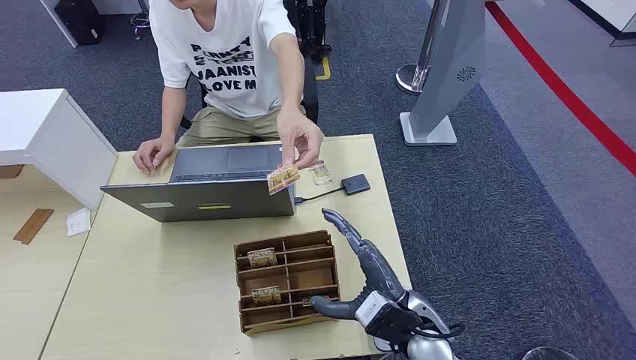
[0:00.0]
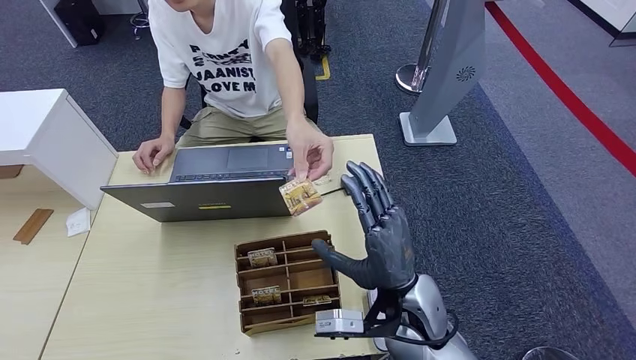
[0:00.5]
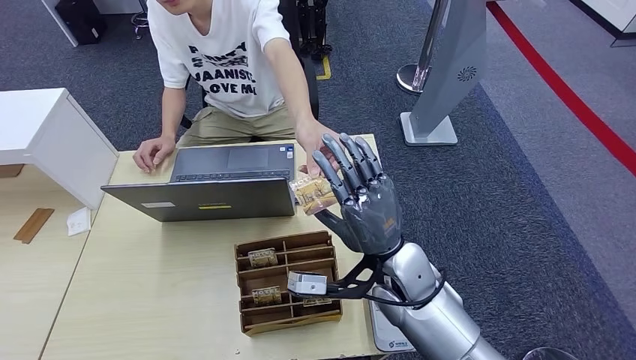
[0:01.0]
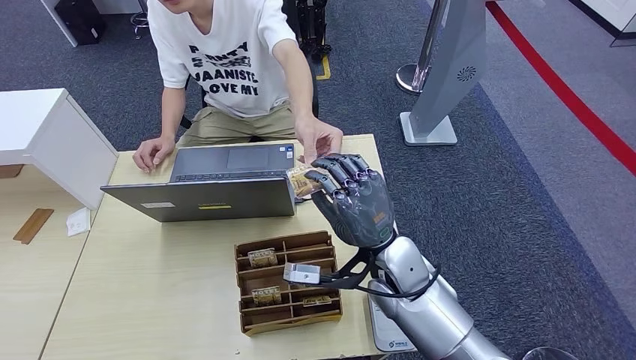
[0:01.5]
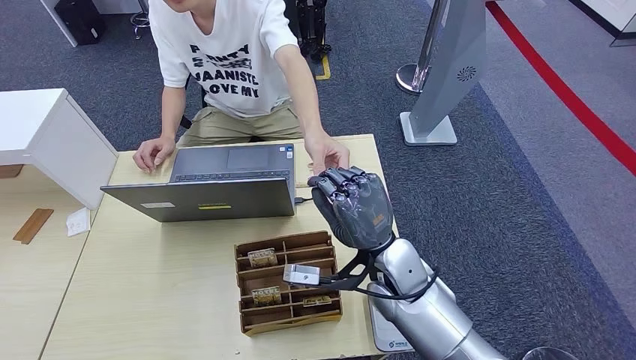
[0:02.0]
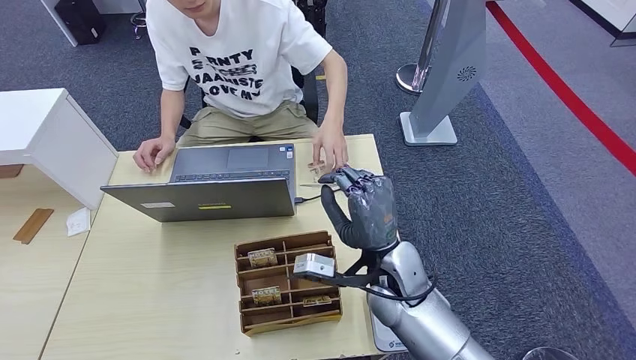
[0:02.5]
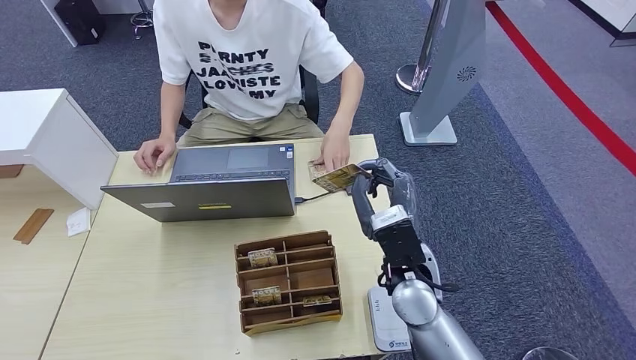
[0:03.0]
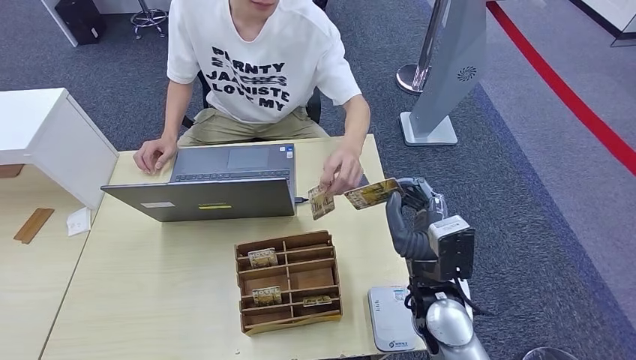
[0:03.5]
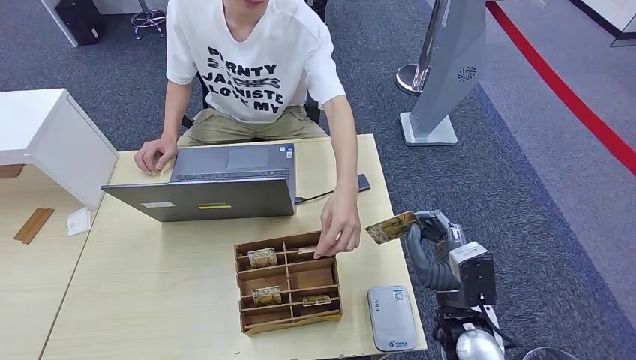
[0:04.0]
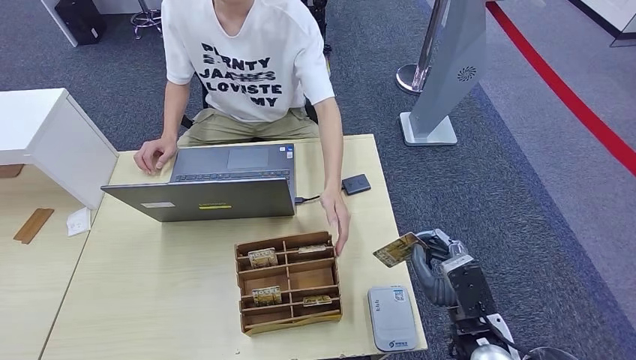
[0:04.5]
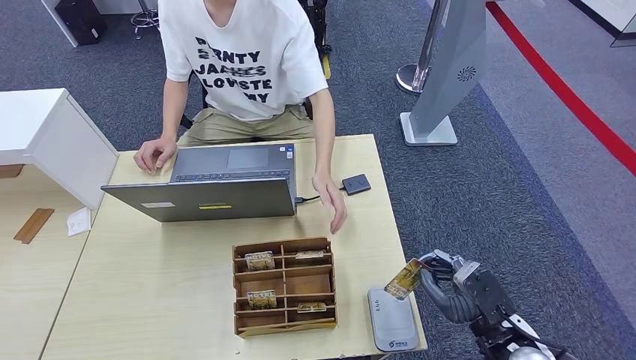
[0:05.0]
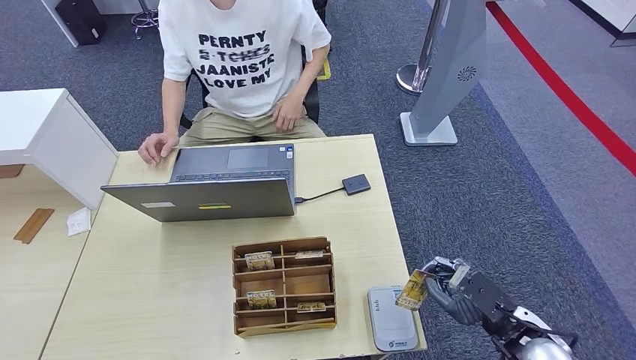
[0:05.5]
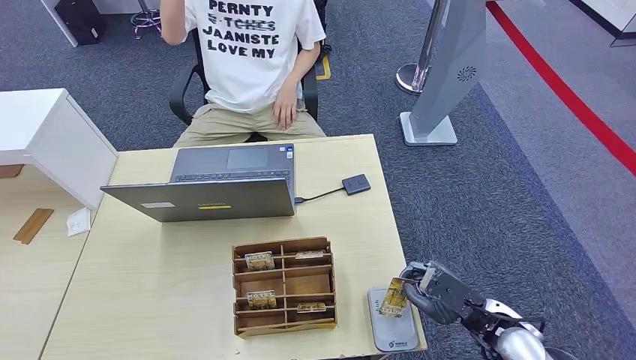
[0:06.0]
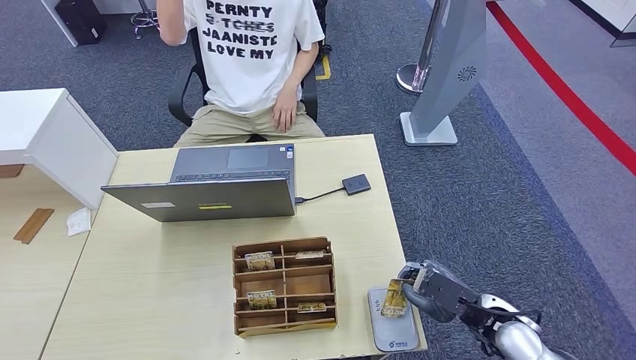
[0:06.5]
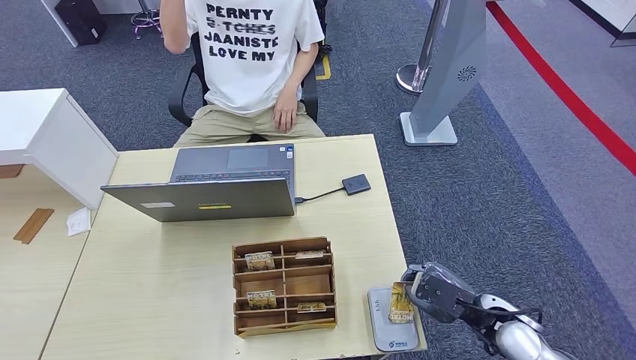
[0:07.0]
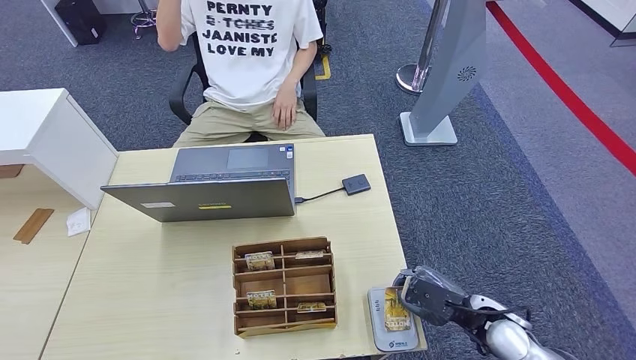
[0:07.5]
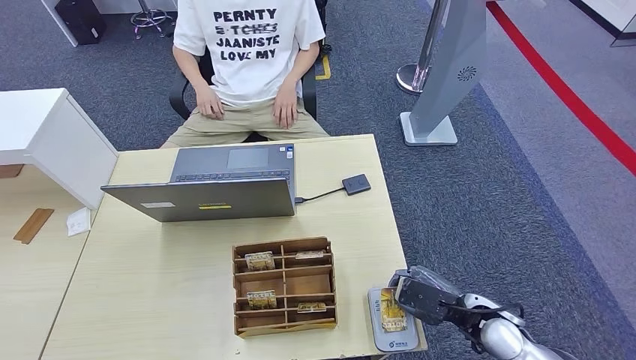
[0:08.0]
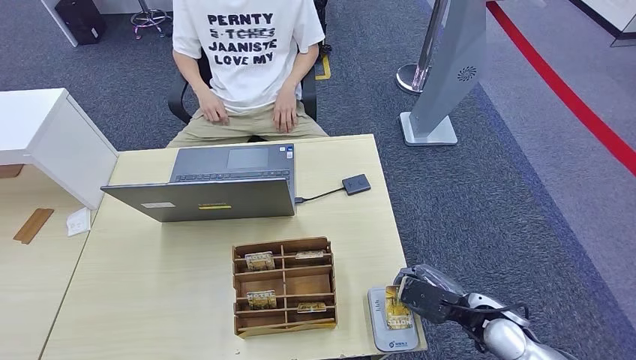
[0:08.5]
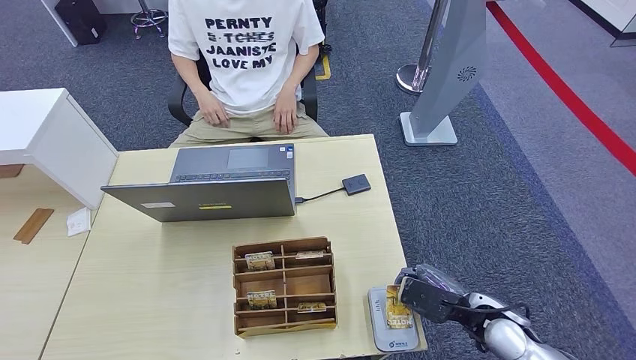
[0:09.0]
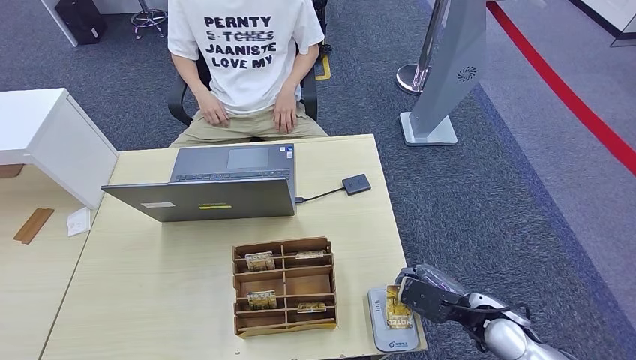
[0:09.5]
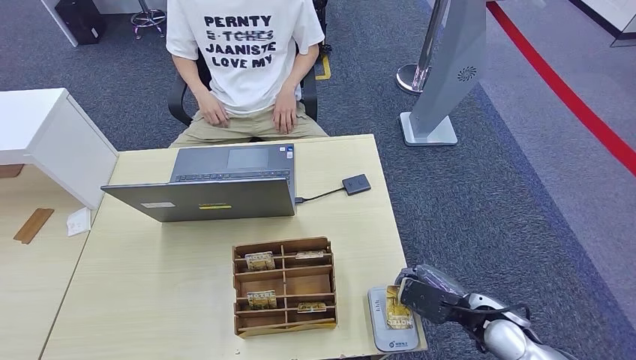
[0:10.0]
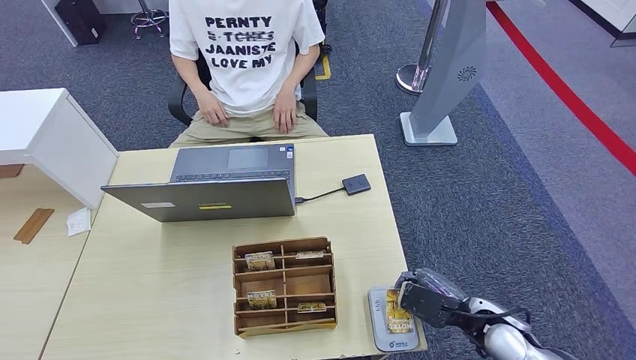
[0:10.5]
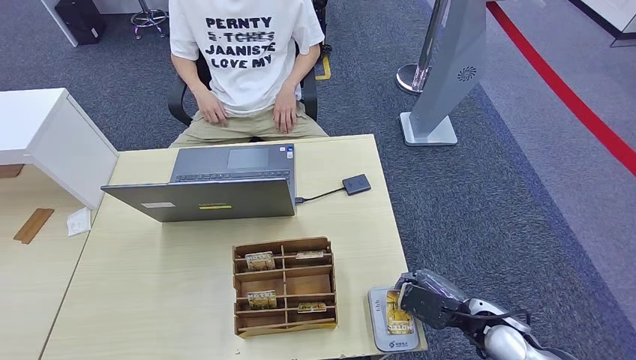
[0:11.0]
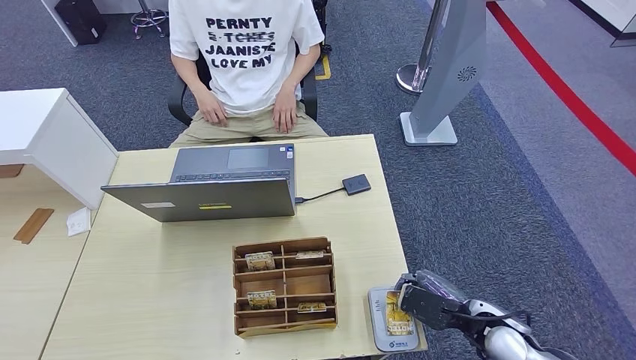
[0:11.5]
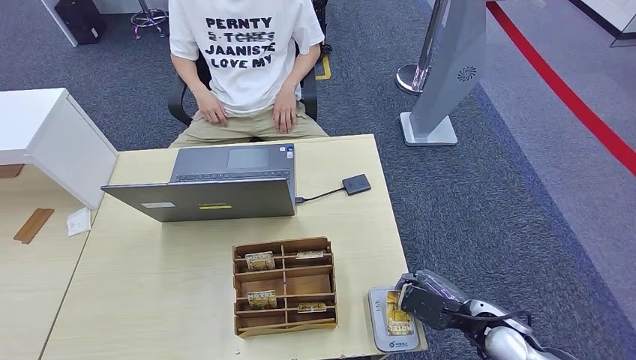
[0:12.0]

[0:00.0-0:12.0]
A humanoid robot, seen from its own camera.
Step, 0:00.0 to 0:01.5: Take the ID card from the person's hand.
Step, 0:02.5 to 0:06.5: Place the ID card on the card reader.
0:02.0 to 0:04.0: The right hand moves to the right and backward, some 15 cm.
0:06.0 to 0:10.0: The hands make only small movements.
0:10.0 to 0:12.0: Both hands stay about where they are.

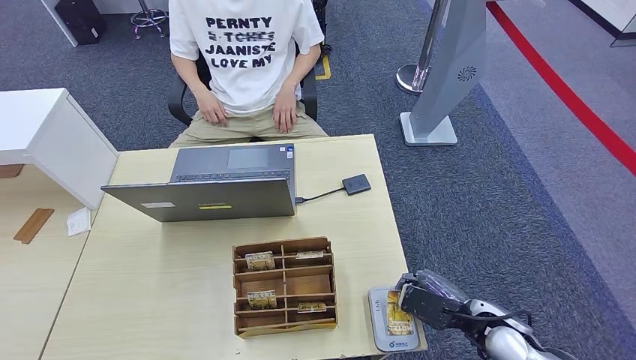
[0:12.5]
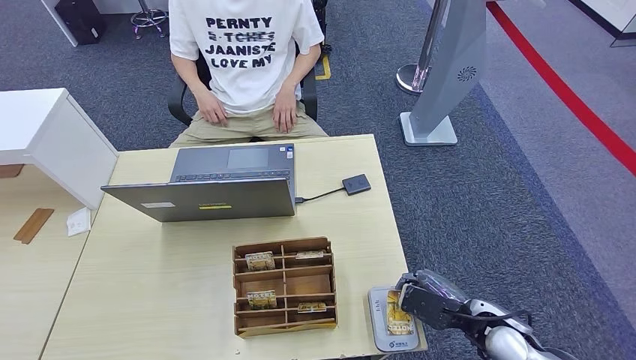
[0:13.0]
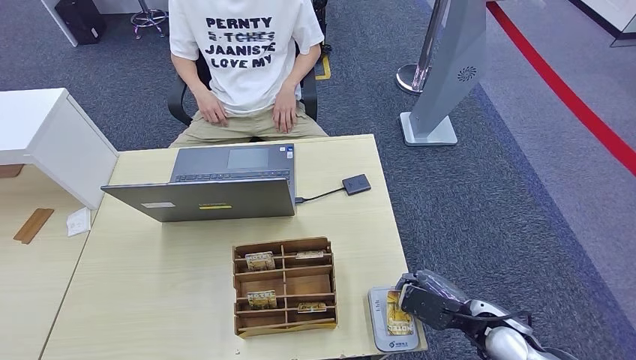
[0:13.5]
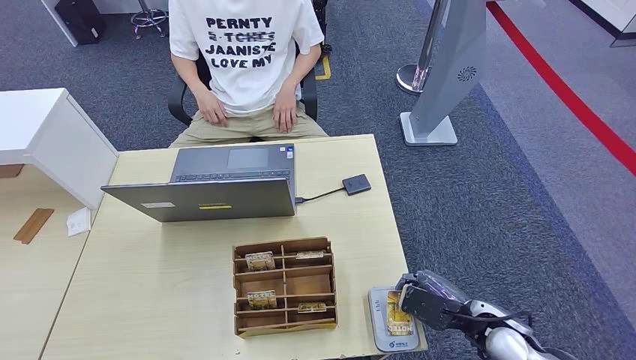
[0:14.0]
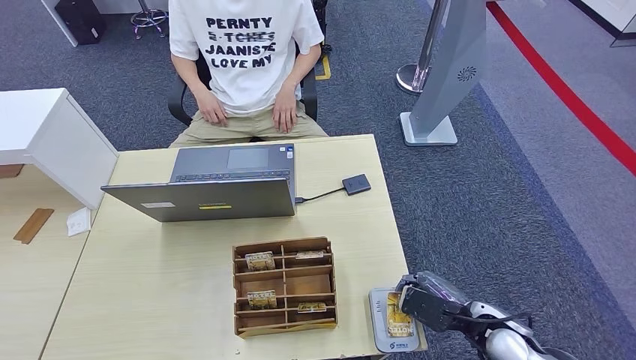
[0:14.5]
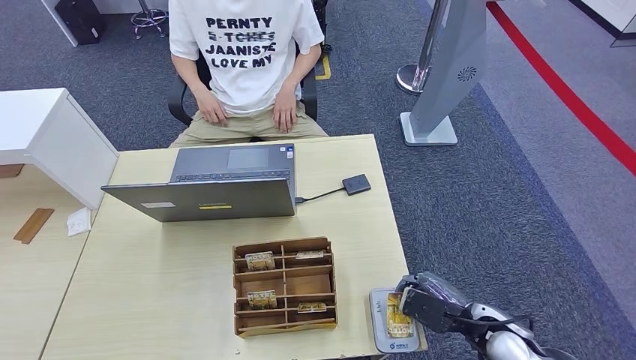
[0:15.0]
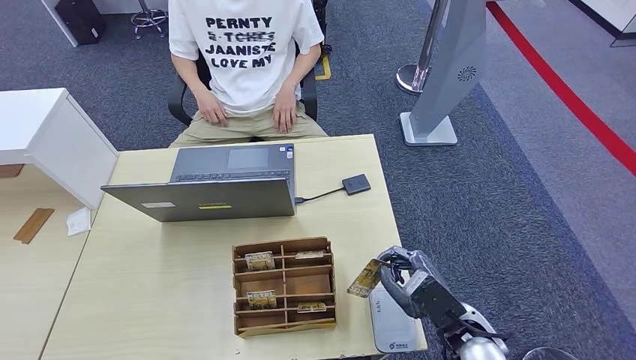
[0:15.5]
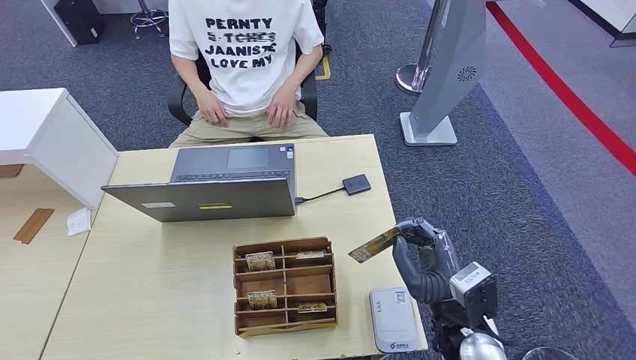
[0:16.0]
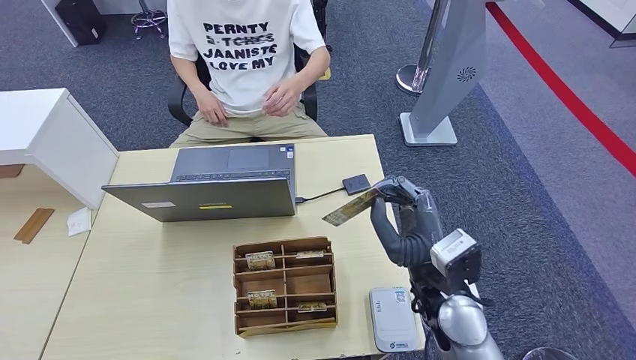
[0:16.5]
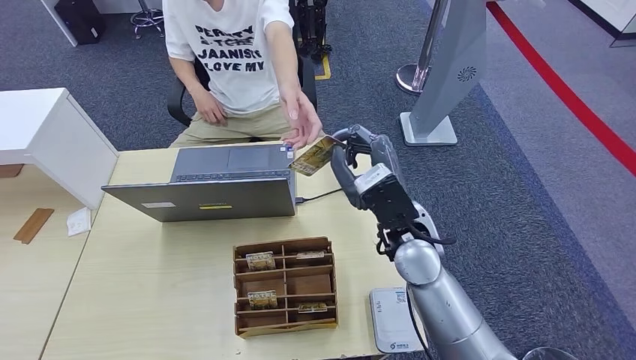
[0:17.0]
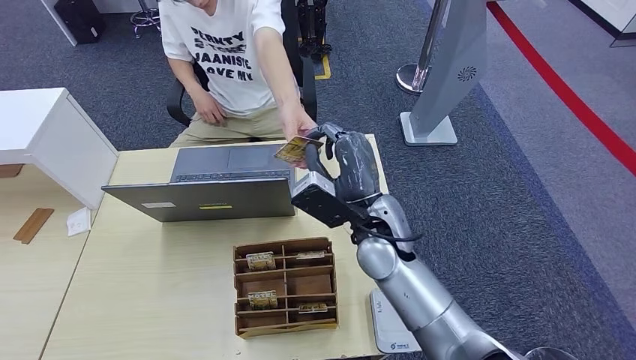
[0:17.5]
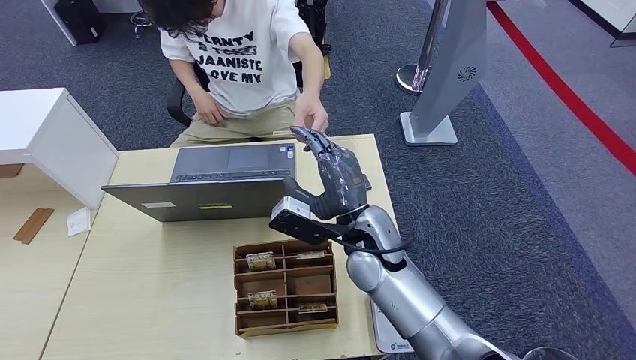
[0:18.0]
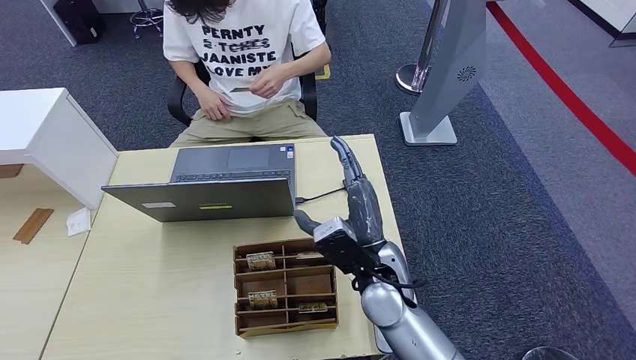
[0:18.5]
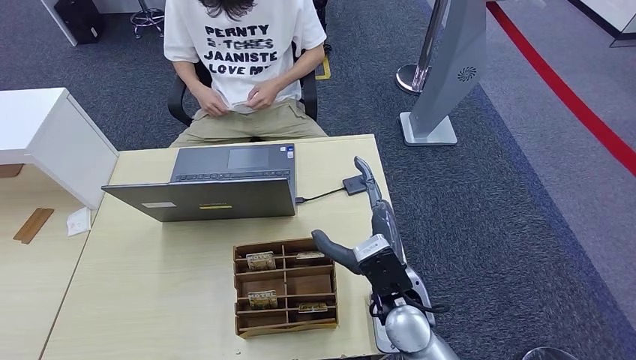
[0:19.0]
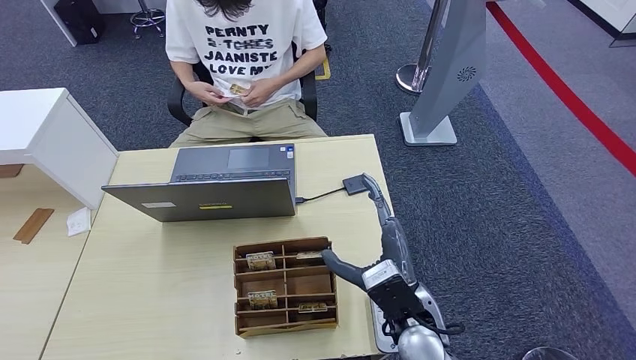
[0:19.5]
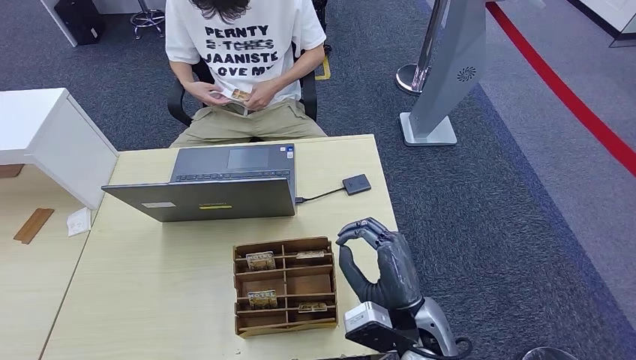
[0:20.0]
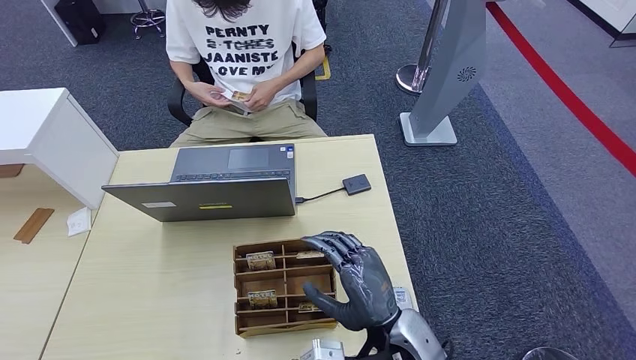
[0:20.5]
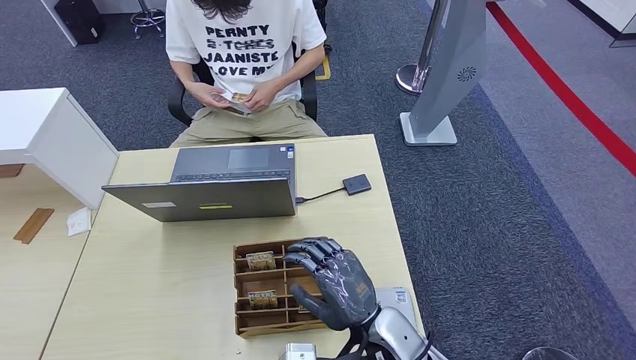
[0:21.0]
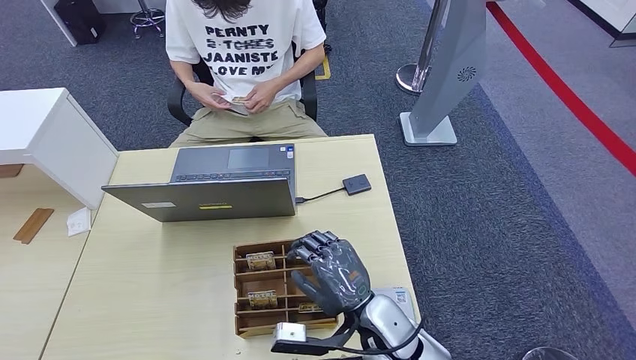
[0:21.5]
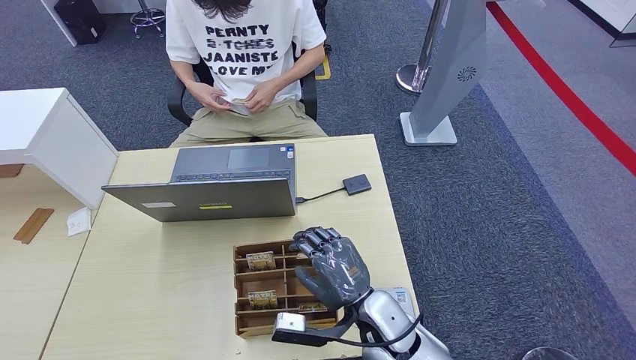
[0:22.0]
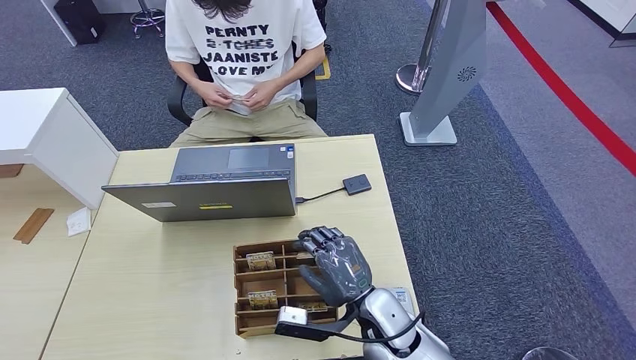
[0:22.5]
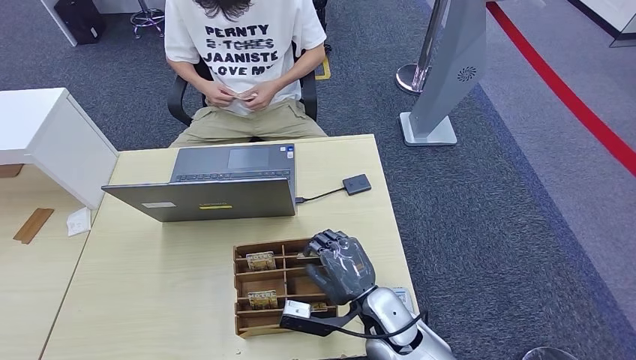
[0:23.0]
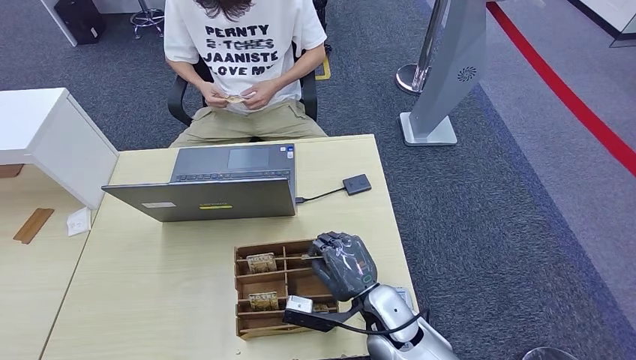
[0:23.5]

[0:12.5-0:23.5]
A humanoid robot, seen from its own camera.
Step, 0:12.5 to 0:18.0: Hand the ID card to the person.
0:12.5 to 0:14.5: Both hands stay put.
0:14.5 to 0:16.0: The right hand is displaced to the left and upward by about 10 cm.
0:18.0 to 0:20.0: The left hand is displaced backward by about 5 cm. The right hand is displaced backward, to the right and downward by about 15 cm.
0:20.0 to 0:21.5: The right hand travels to the left by about 5 cm.
0:21.5 to 0:23.5: There are only small adjustments of the hands.
